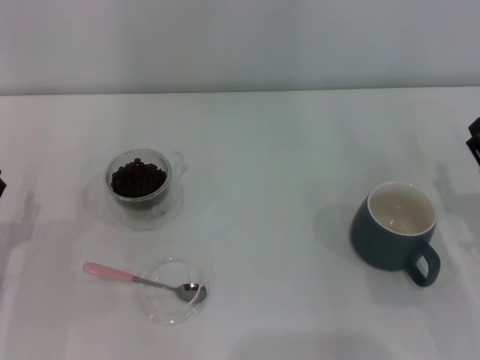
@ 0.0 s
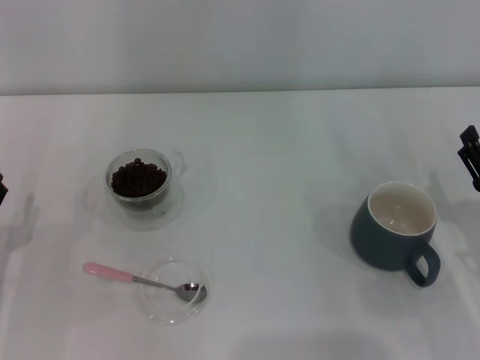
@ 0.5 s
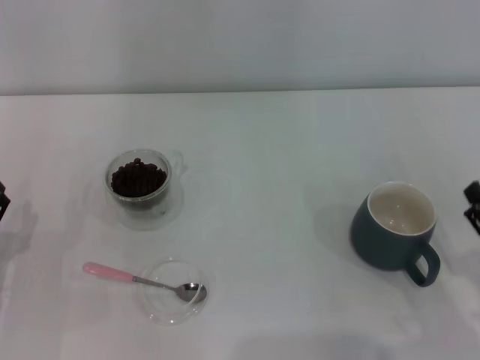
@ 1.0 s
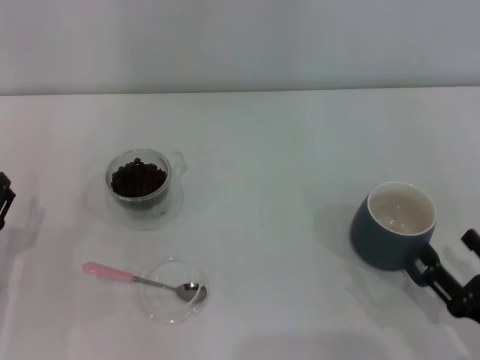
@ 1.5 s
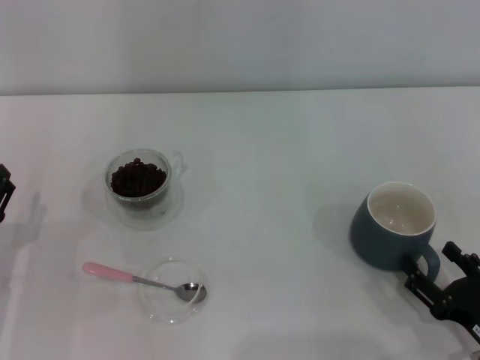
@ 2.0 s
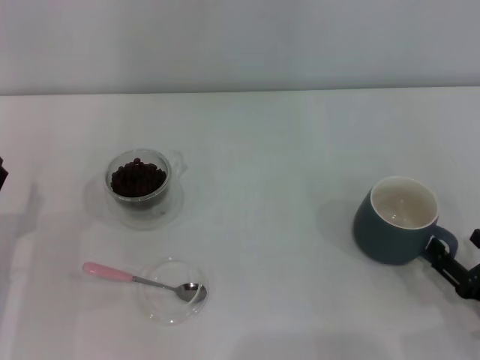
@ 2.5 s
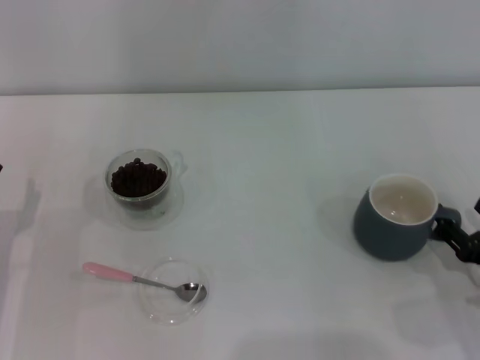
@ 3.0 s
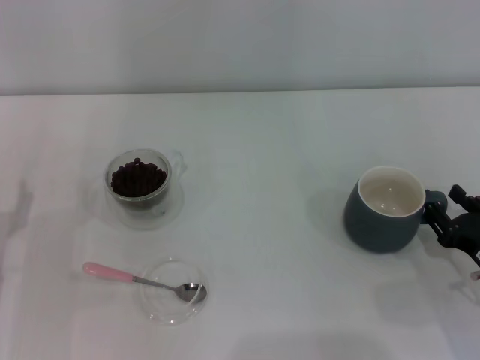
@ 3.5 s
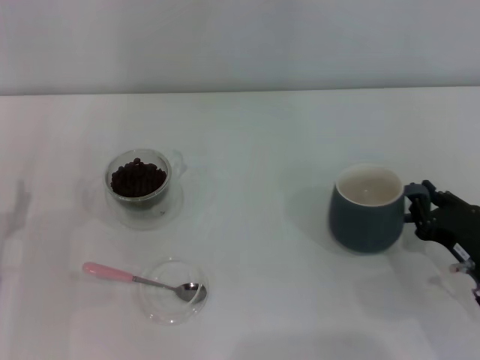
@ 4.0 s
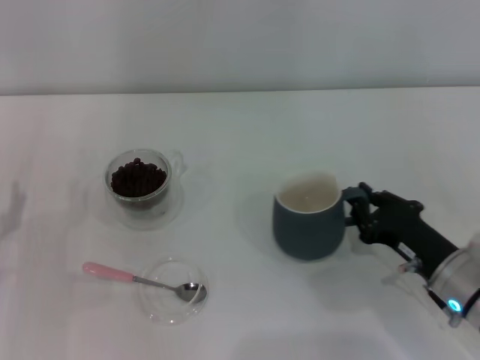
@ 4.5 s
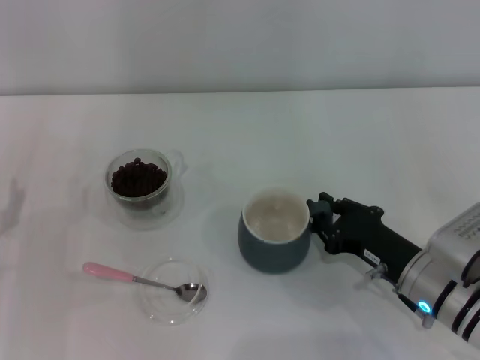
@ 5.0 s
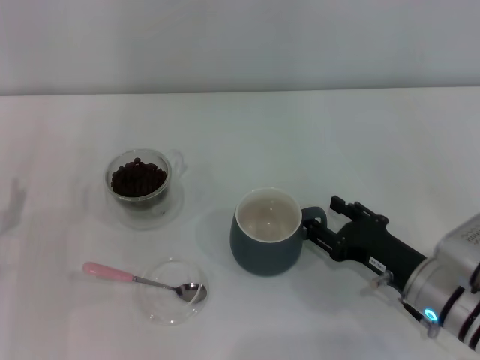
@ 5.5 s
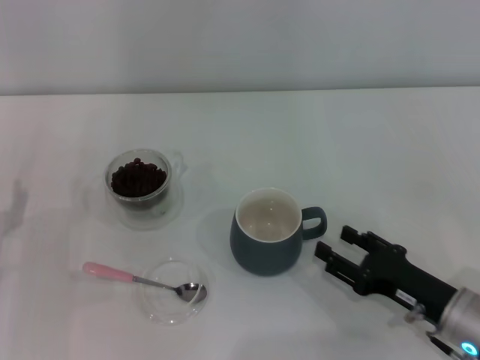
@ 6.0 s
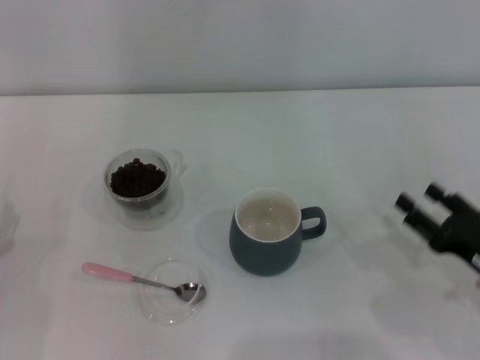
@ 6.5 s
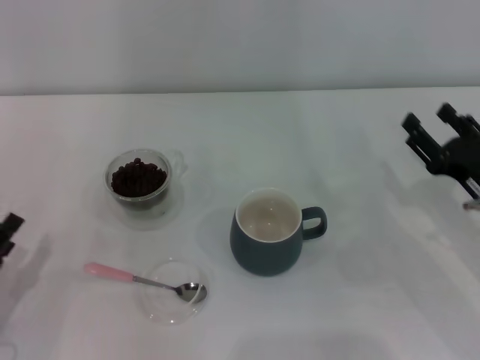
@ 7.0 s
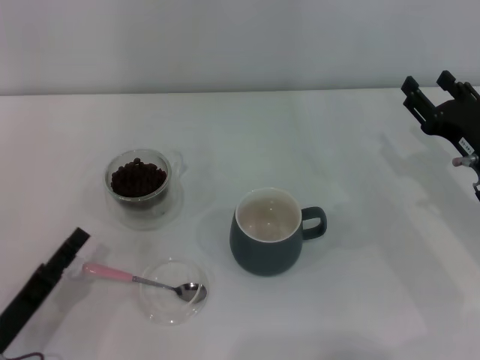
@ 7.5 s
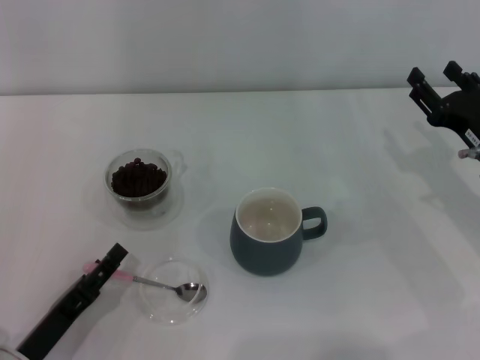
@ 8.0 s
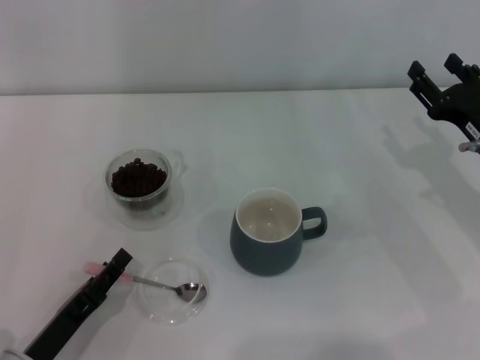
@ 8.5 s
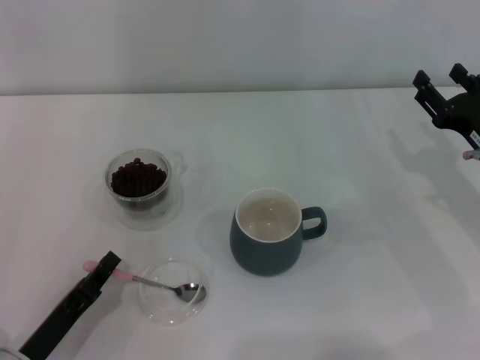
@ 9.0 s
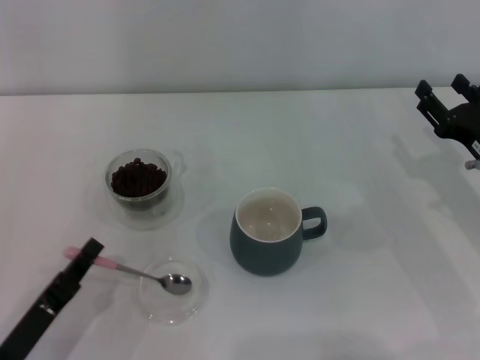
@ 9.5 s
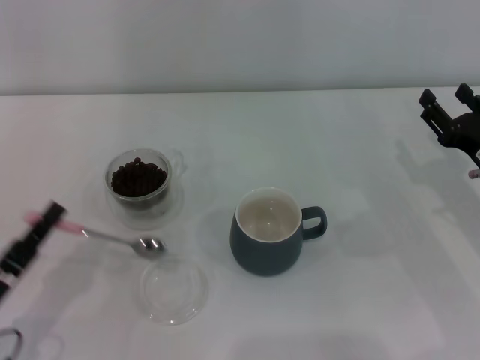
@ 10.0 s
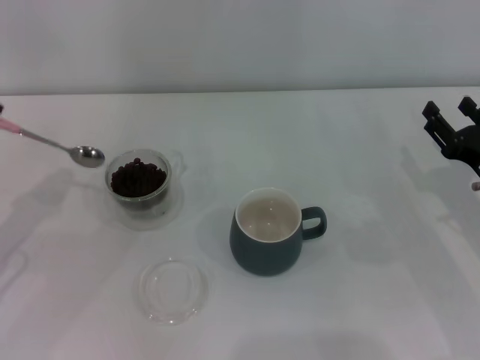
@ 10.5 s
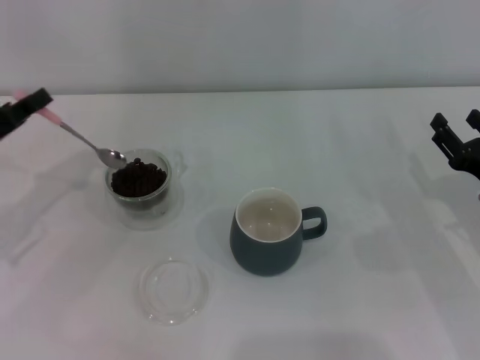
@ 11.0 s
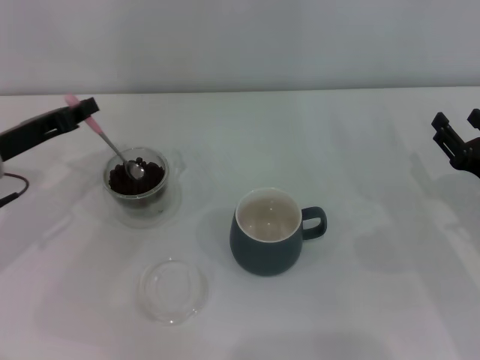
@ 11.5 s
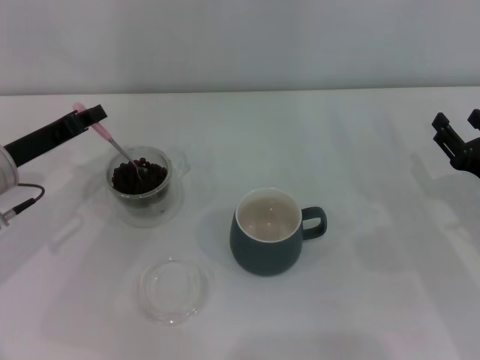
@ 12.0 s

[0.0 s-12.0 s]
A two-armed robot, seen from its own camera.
Task of the whole recording: Use a pink spoon to take out the coffee beans from the glass and pour them into the gray cup.
Step, 0.0 to 6.0 s: Move the cup to the center of view with the left gripper.
Step, 6.5 to 10.0 s: Pick up the spoon with the right gripper.
0.0 to 2.0 s: The right gripper shifts roughly 10 cm backward.
2.0 to 4.0 s: The right gripper moves forward, about 10 cm, and closes.
4.0 to 6.0 s: The right gripper opens up.
6.0 to 8.0 s: The right gripper is displaced forward, upward and to the right by roughly 15 cm. The left gripper heads backward and to the right, covering about 10 cm.
8.0 to 10.0 s: The left gripper closes.
10.0 to 12.0 s: The left gripper is displaced forward by approximately 20 cm.

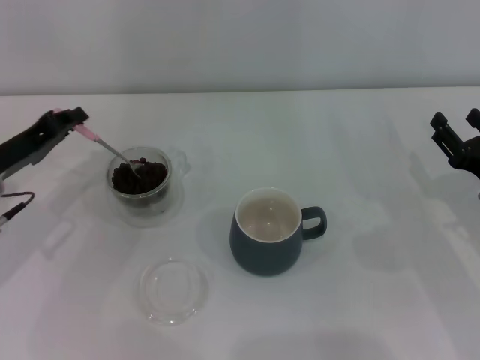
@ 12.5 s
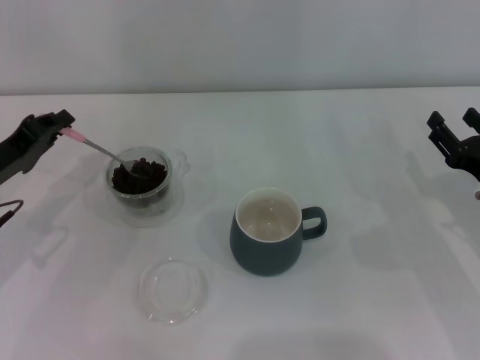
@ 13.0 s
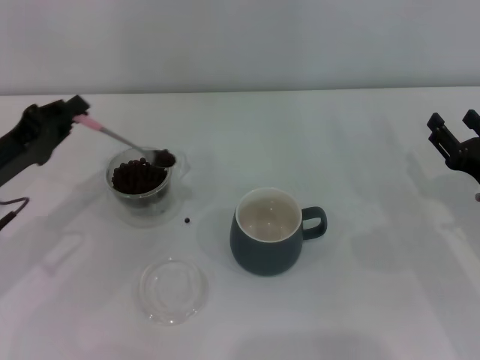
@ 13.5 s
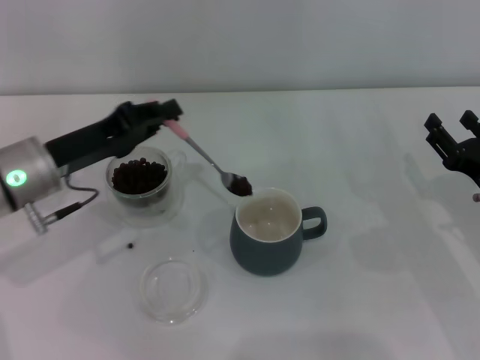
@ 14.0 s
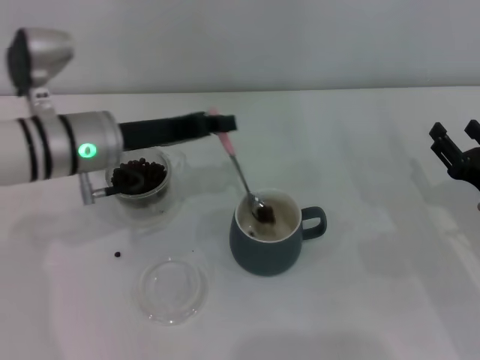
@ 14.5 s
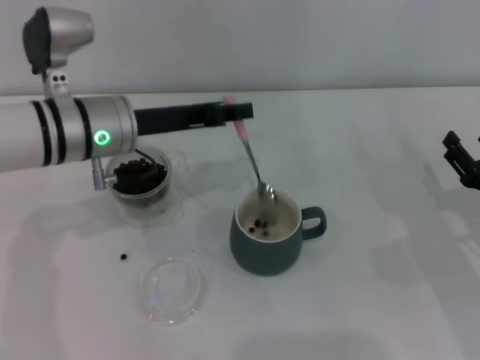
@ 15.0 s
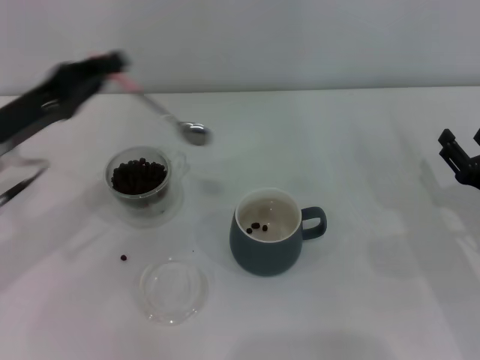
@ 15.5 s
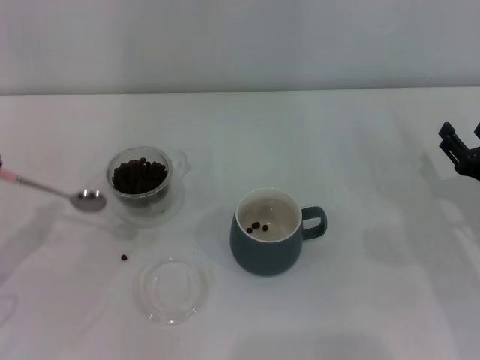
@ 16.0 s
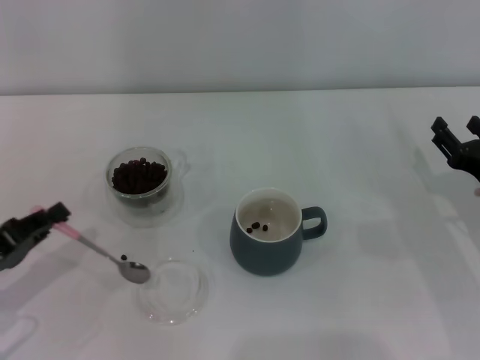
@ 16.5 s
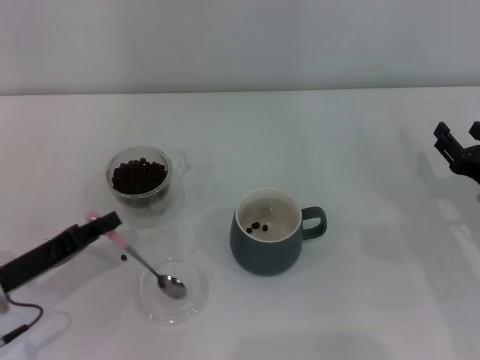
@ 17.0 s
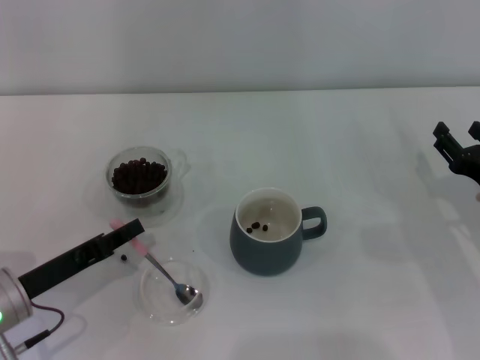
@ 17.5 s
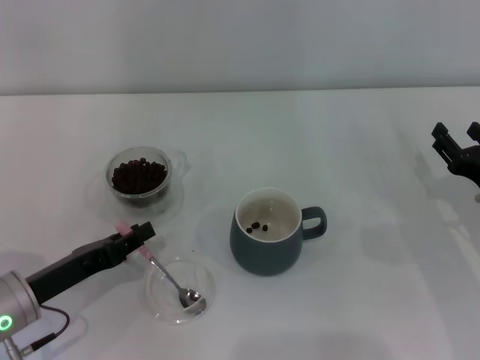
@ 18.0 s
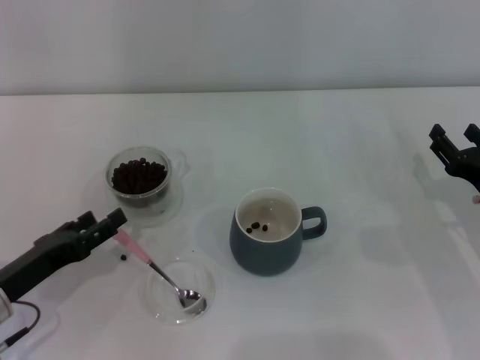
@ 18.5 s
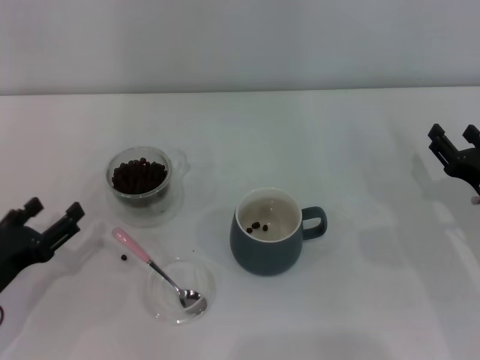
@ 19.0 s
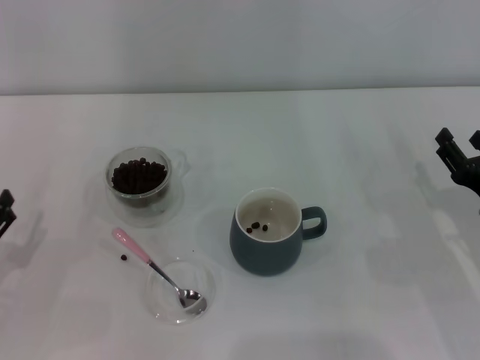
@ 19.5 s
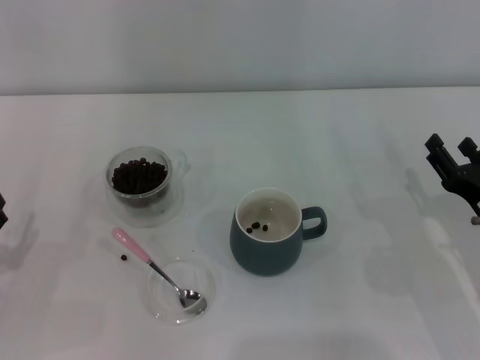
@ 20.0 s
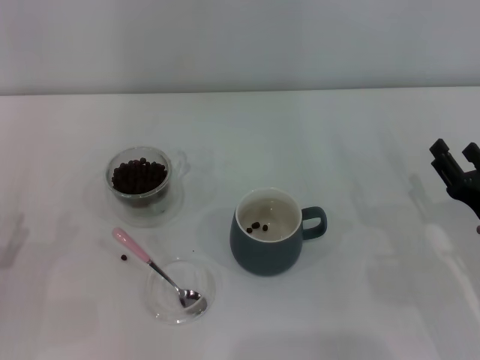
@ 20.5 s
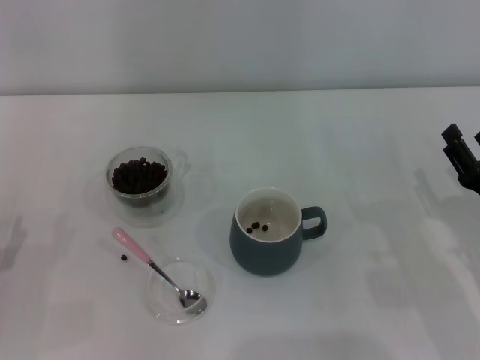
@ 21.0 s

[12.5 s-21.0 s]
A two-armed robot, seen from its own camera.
Task of the whole recording: Use a pink spoon to take out the coffee beans from the glass and pour them into the gray cup.
12.5 to 14.5 s: The left gripper heads to the right, covering roughly 10 cm.
14.5 to 16.5 s: The left gripper travels to the left, backward and downward by about 25 cm.
16.5 to 19.0 s: The left gripper opens.

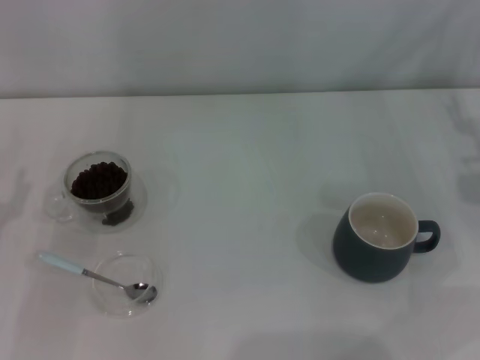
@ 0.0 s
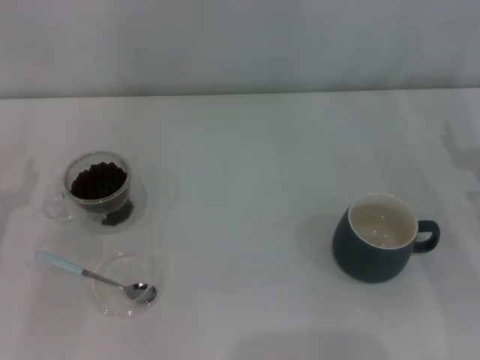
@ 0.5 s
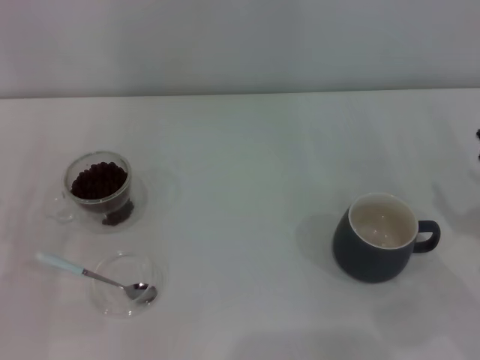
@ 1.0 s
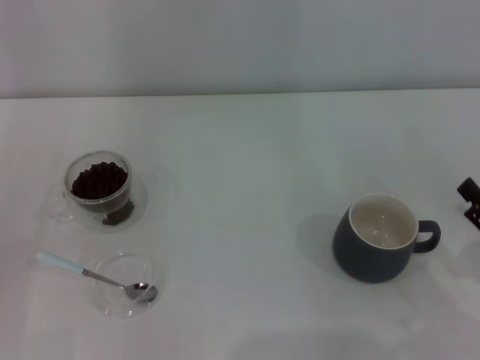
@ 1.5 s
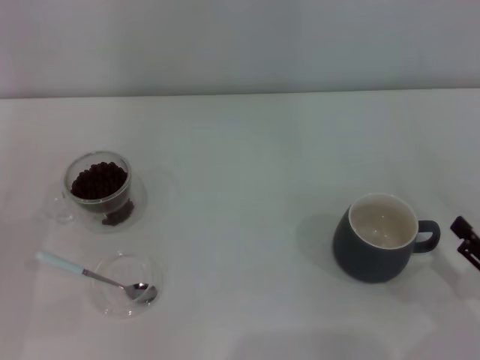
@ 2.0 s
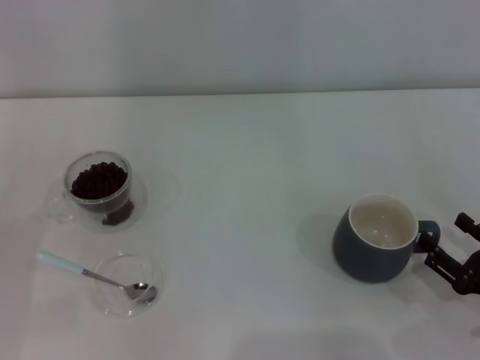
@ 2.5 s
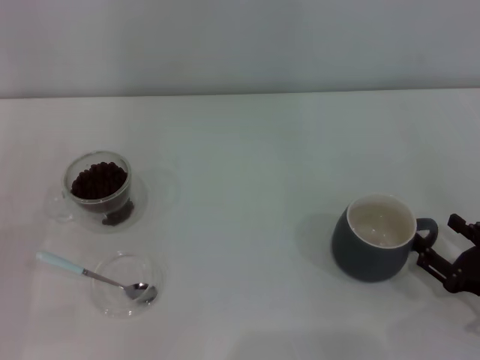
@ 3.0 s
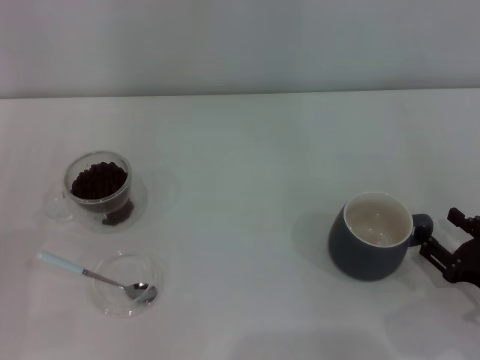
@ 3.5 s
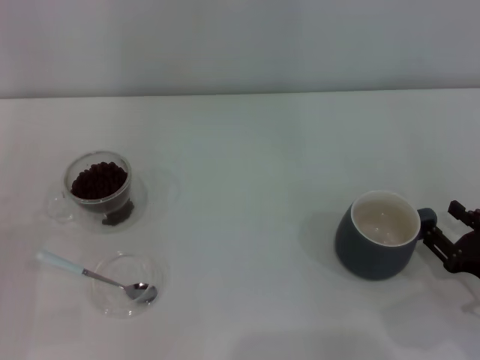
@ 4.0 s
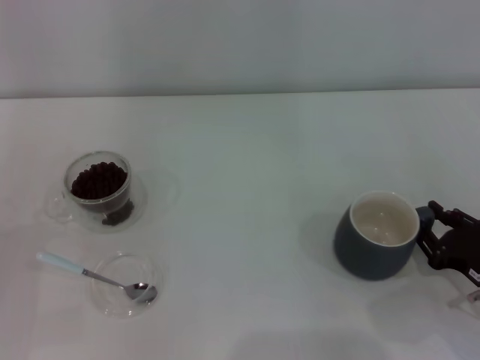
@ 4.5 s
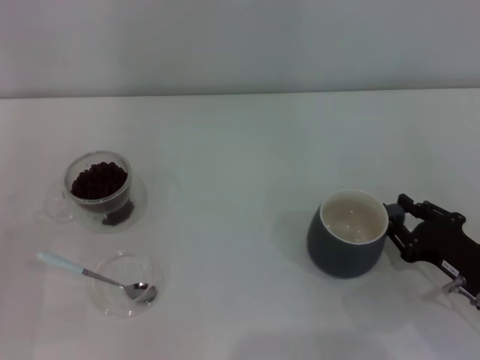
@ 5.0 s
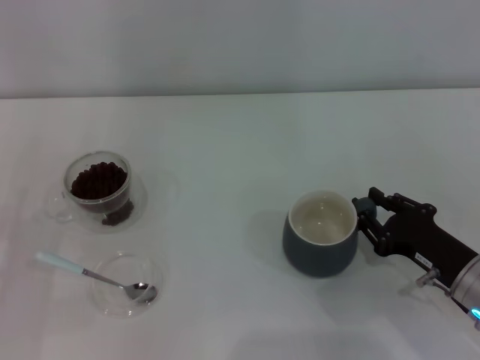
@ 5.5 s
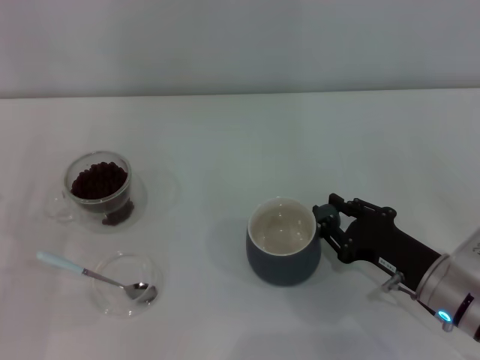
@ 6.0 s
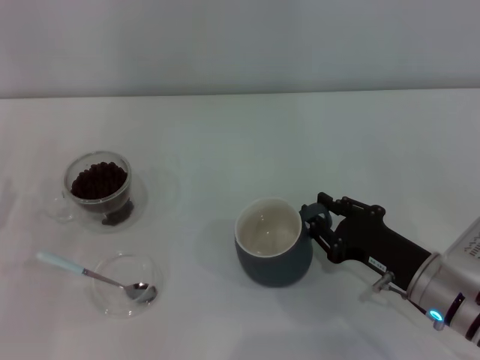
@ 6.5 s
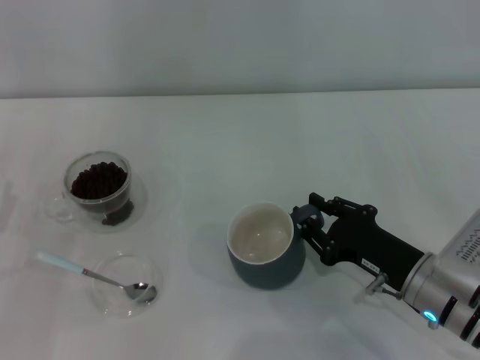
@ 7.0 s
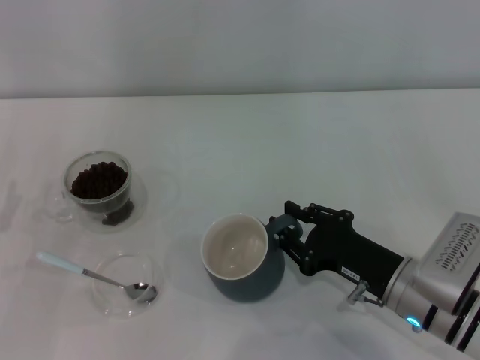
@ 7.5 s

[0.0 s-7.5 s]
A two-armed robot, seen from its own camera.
Task of the whole recording: Use a blue spoon to take out the coffee beans from the glass and pour them into the gray cup.
0.0 to 2.0 s: The right gripper travels backward by approximately 20 cm.
2.0 to 4.0 s: The right gripper shifts by about 5 cm, and closes its fingers.
4.0 to 5.5 s: The right gripper travels to the left by roughly 5 cm, and closes its fingers.
5.5 to 7.5 s: The right gripper travels to the left by approximately 5 cm.
